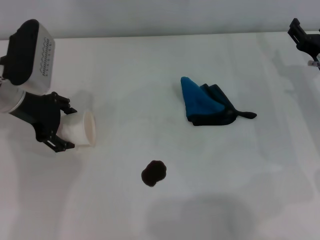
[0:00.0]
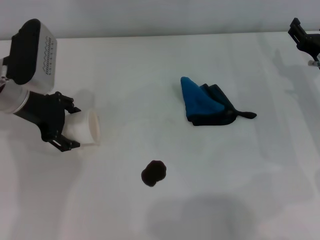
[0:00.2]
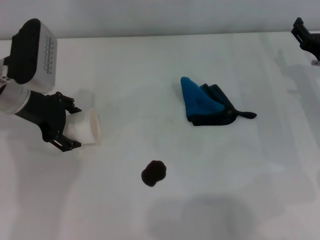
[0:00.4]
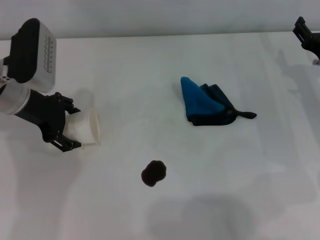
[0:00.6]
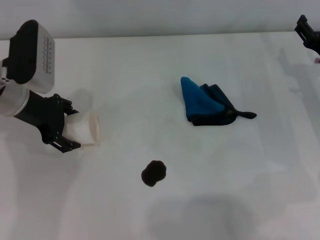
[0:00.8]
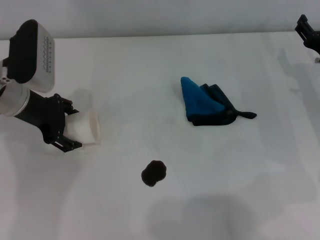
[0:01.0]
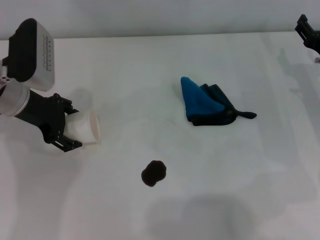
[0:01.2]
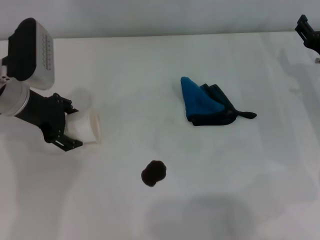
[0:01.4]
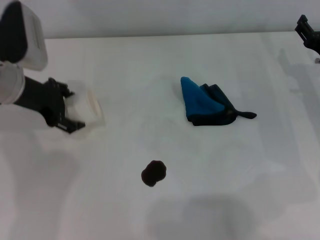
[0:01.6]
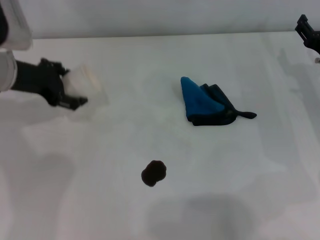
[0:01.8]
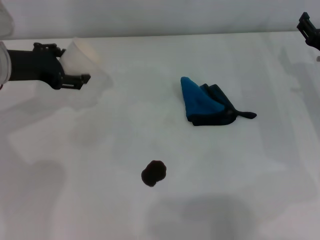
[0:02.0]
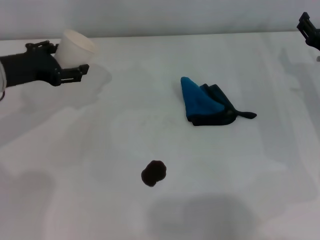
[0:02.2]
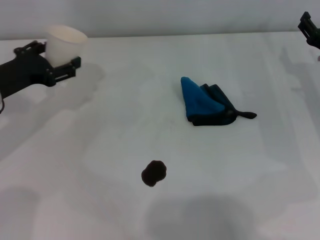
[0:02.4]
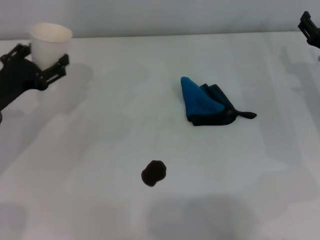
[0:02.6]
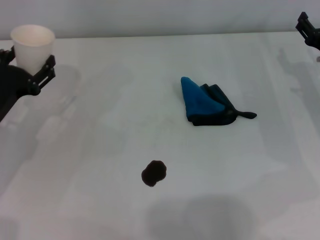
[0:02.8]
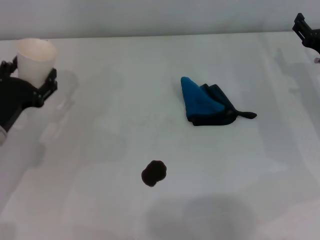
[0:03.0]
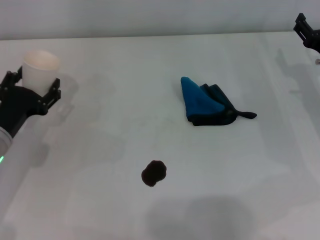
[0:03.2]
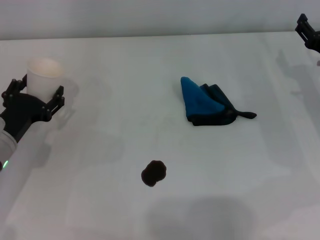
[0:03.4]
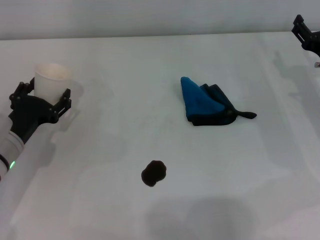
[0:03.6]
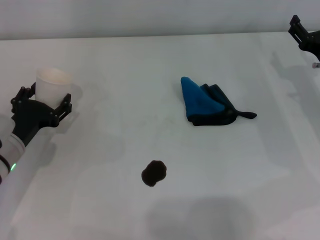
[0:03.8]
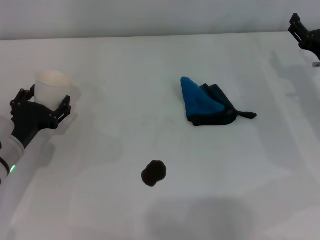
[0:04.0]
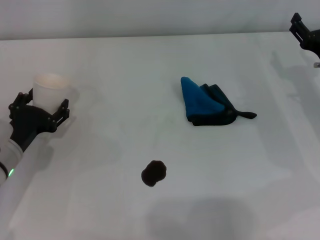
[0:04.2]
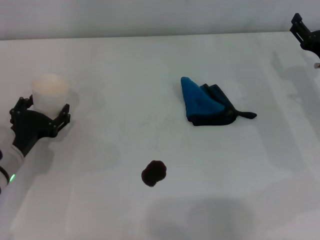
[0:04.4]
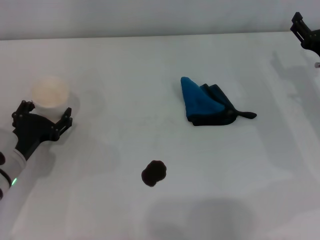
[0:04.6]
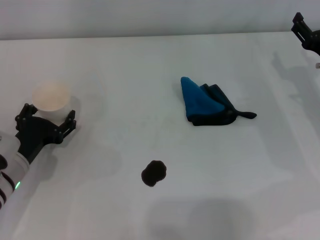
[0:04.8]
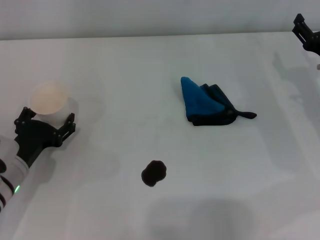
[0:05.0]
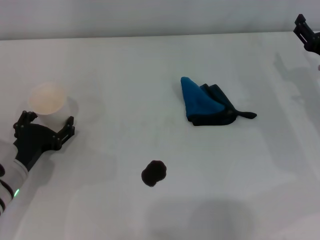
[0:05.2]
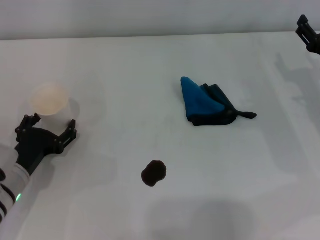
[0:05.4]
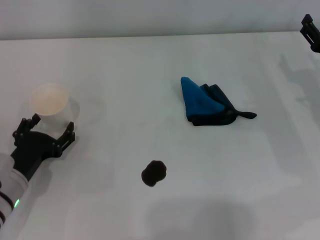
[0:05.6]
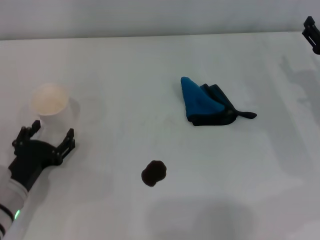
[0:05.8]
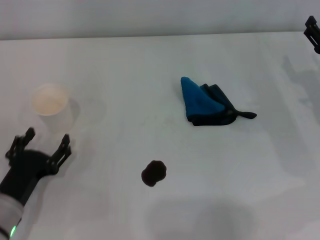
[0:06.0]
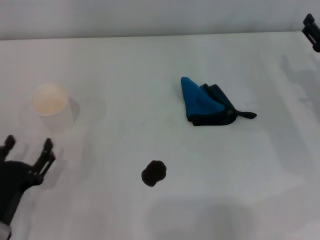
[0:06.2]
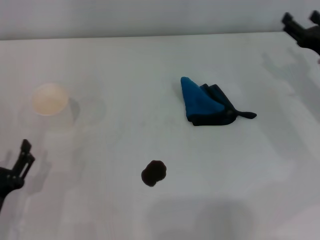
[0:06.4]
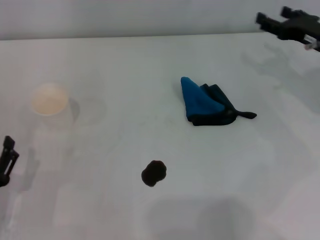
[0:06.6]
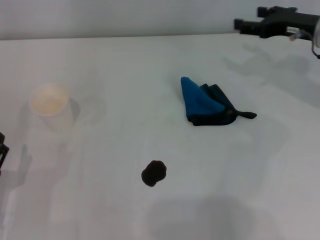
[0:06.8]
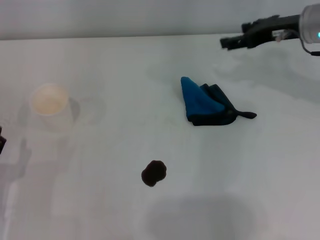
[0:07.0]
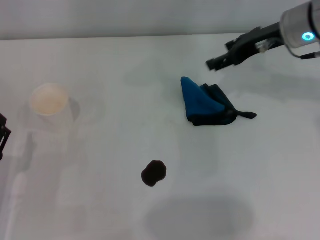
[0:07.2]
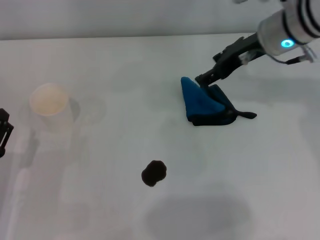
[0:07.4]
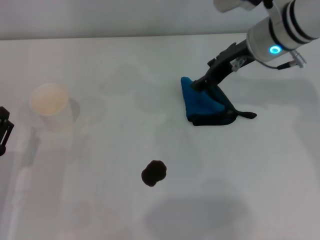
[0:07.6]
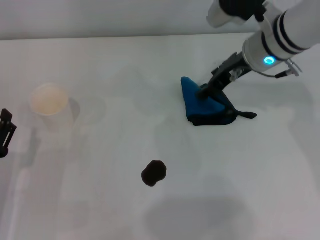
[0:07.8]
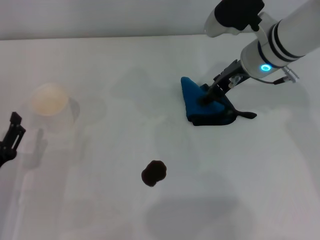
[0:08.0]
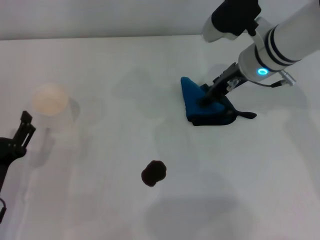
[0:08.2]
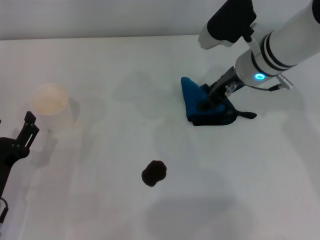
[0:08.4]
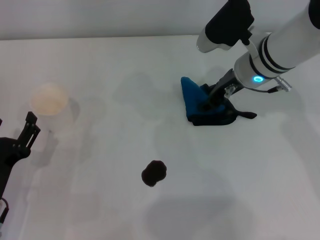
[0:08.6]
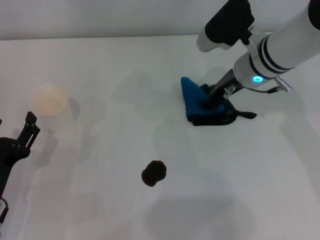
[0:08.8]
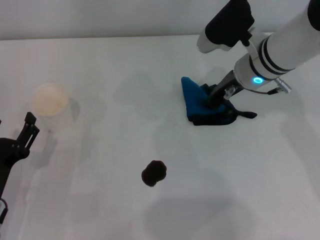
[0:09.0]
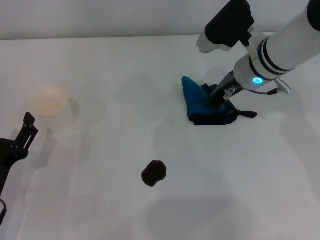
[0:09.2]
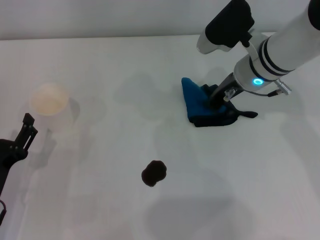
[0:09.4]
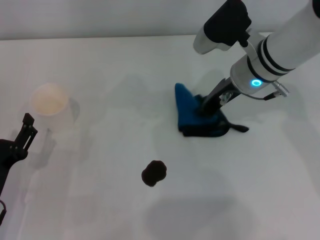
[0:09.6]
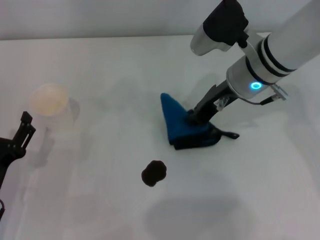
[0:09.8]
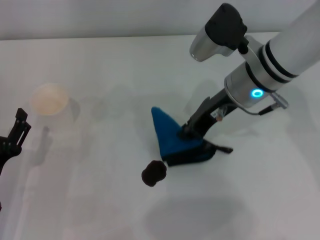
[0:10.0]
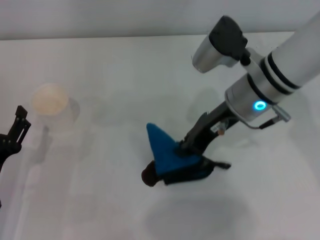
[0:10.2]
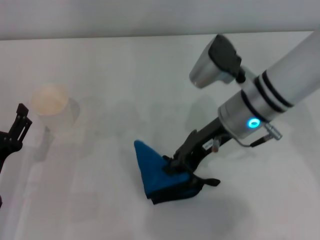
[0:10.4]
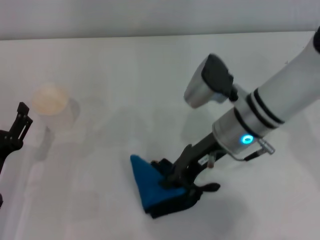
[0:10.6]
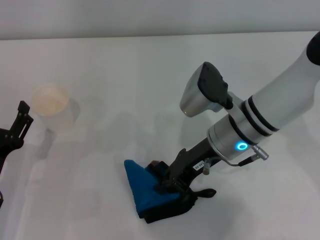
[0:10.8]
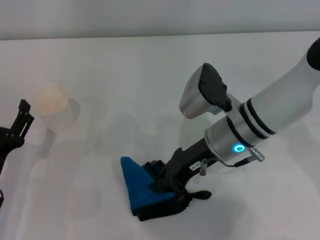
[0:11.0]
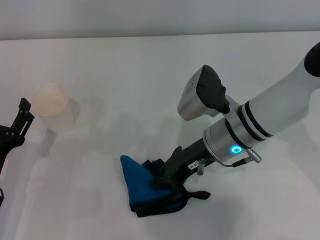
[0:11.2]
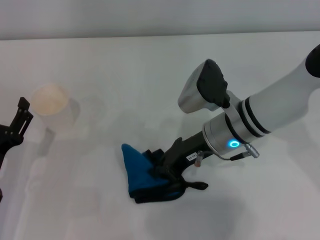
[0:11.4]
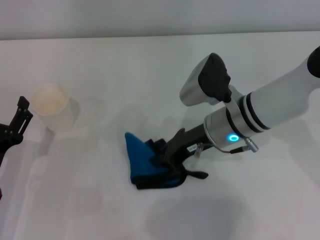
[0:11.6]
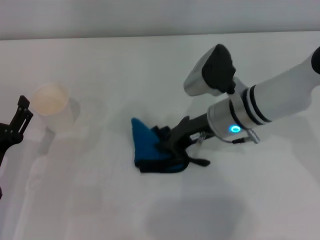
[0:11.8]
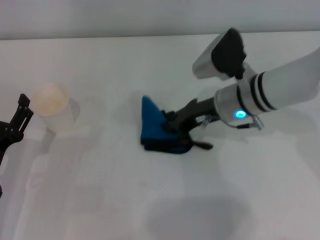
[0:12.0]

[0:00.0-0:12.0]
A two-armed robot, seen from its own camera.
Step, 0:01.4 to 0:05.0: Stand the paper cup upright with the left gripper.
Step, 0:05.4 to 0:09.2: Grasp the rag with the right gripper.
0:00.0 to 0:01.6: The grippers stay close to where they were, moving slightly.
0:01.6 to 0:03.0: The left gripper goes approximately 15 cm downward and backward.
0:03.0 to 0:04.4: The grippers move only a little.
0:04.4 to 0:06.0: The left gripper heads backward, covering roughly 10 cm.
0:06.0 to 0:07.6: The right gripper shifts about 20 cm to the left, upward and forward.
0:07.6 to 0:09.0: The right gripper moves downward, approximately 5 cm, and closes up.
0:09.0 to 0:10.4: The right gripper goes some 5 cm backward, and closes up.
0:10.4 to 0:12.0: The grippers make only small movements.

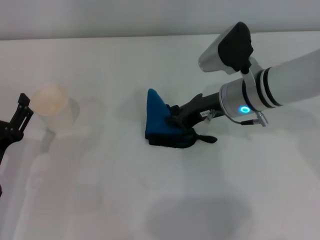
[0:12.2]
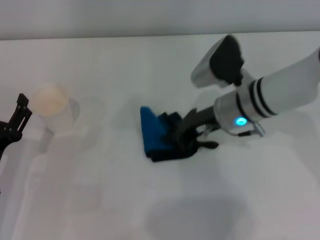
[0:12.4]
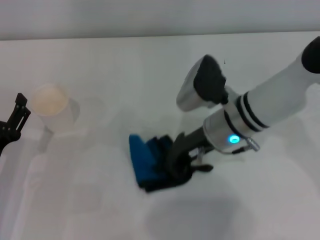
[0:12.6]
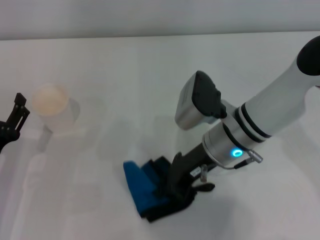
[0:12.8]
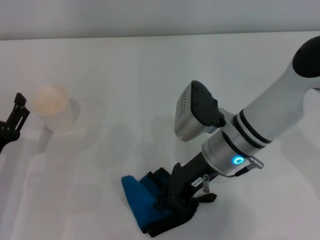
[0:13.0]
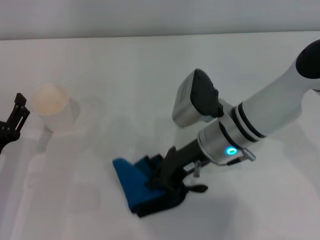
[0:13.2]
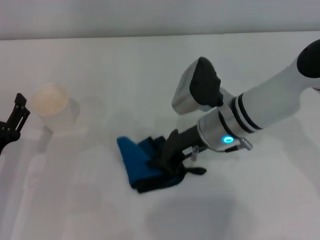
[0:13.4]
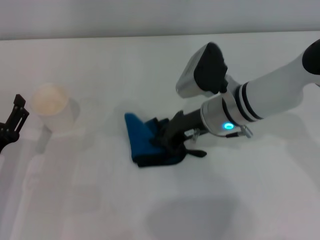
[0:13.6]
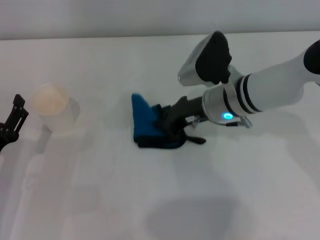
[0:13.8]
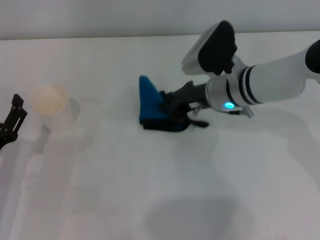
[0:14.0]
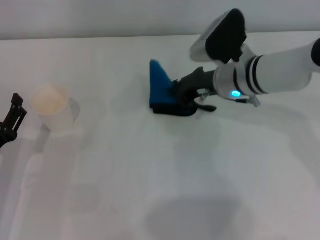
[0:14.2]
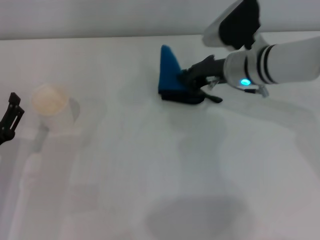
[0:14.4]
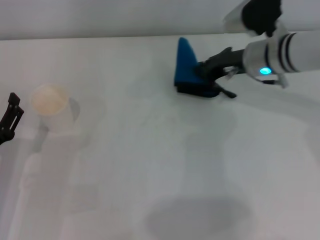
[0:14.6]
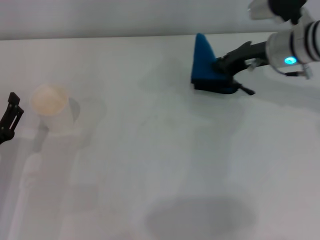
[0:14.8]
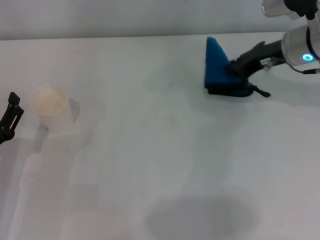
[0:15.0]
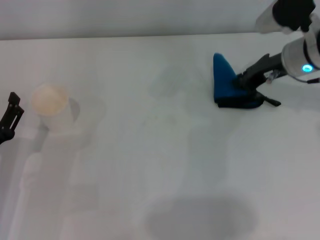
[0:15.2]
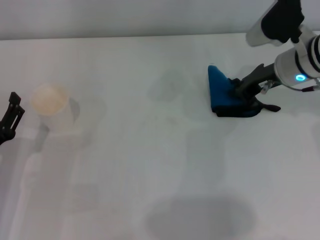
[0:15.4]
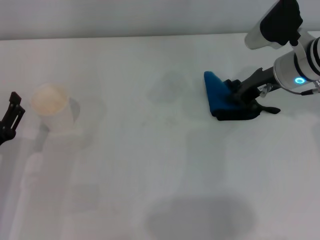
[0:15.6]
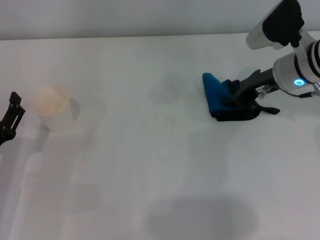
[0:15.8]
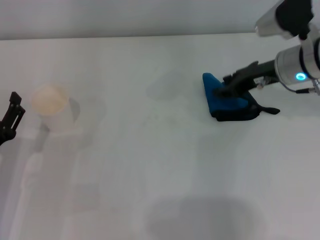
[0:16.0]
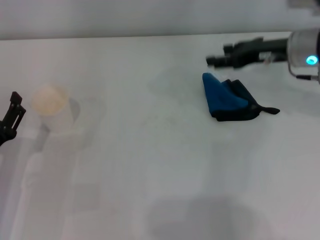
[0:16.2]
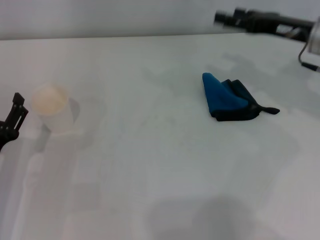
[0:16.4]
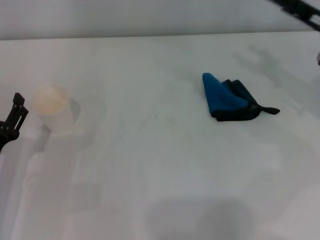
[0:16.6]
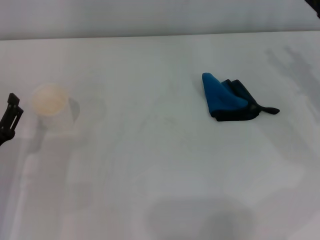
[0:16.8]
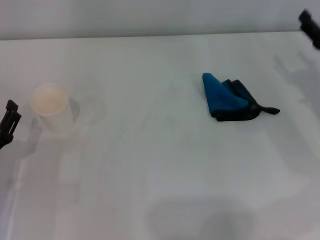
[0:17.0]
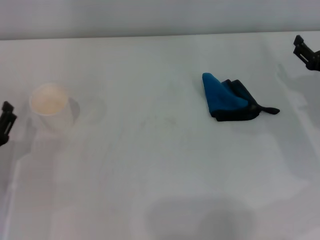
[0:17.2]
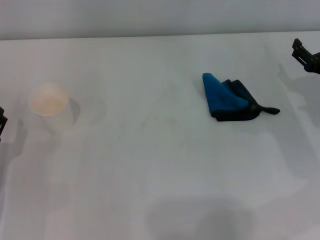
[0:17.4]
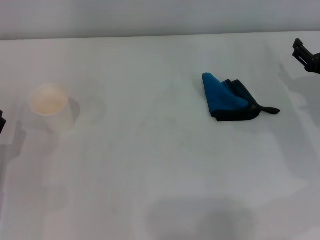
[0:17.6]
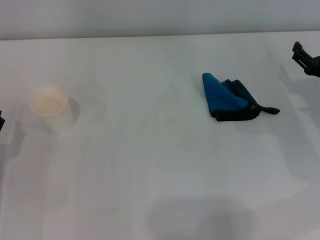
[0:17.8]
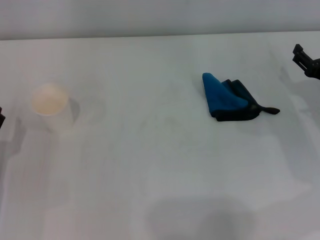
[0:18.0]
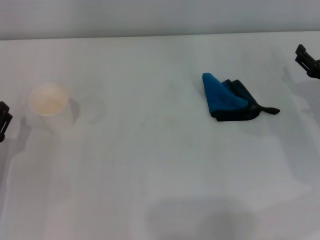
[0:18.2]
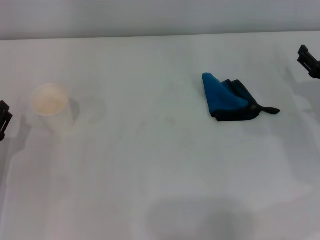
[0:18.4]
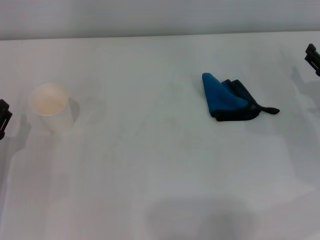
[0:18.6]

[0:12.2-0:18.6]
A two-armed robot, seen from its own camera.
Step, 0:12.2 to 0:15.0: Wipe the stains off the table with the right gripper.
Step, 0:15.2 to 0:15.8: Place the rag on the table with the right gripper.
0:13.8 to 0:15.4: The right gripper is displaced to the right by about 10 cm.
0:15.4 to 0:17.0: The right gripper is displaced to the right, backward and downward by approximately 15 cm, and opens.
0:17.0 to 0:18.6: The grippers move only a little.
